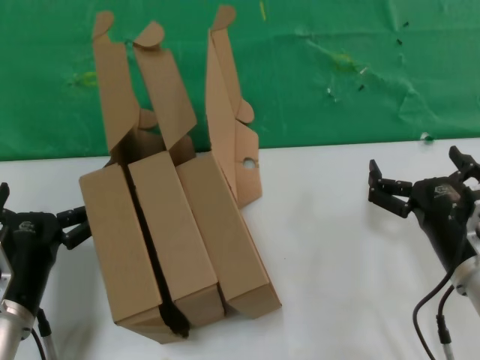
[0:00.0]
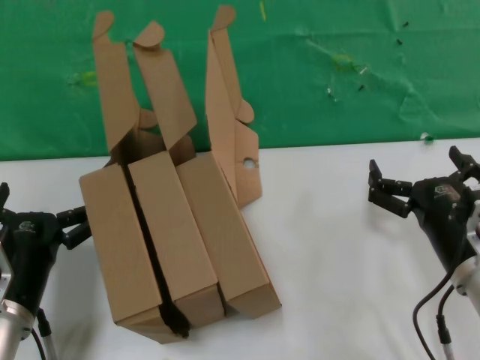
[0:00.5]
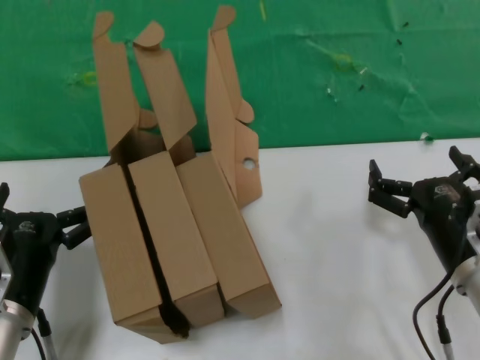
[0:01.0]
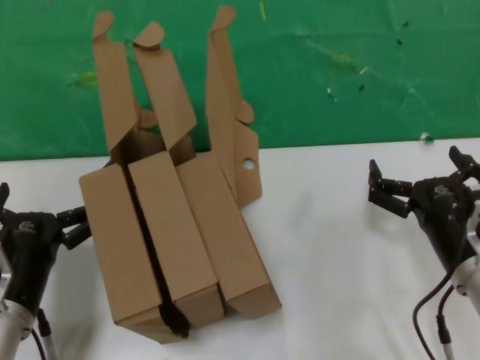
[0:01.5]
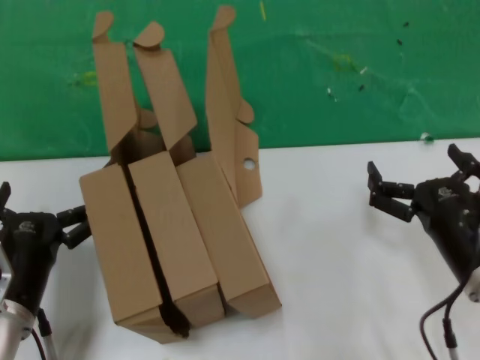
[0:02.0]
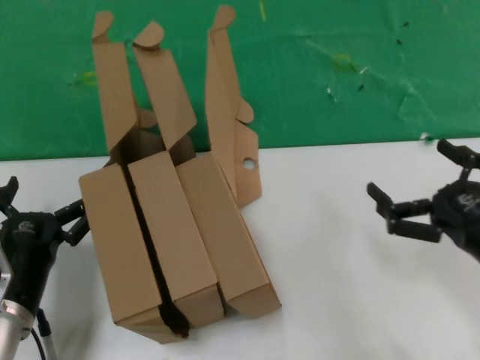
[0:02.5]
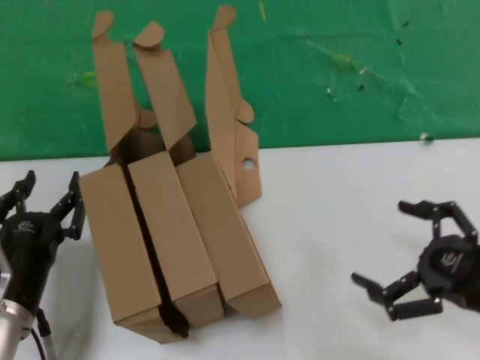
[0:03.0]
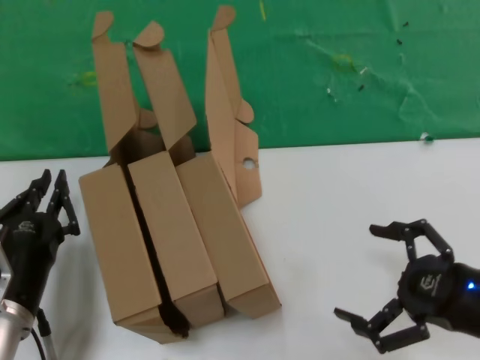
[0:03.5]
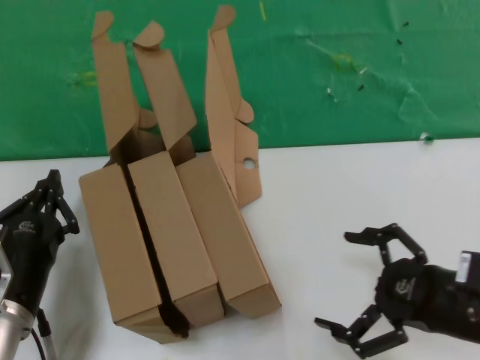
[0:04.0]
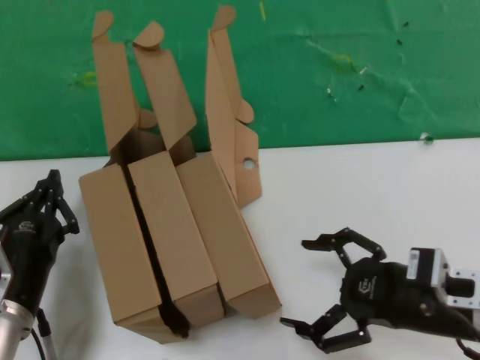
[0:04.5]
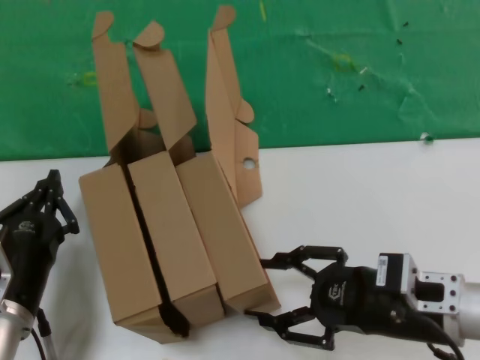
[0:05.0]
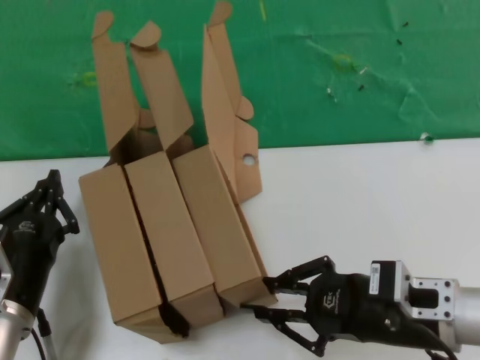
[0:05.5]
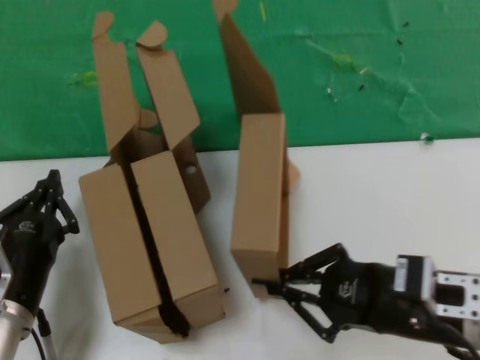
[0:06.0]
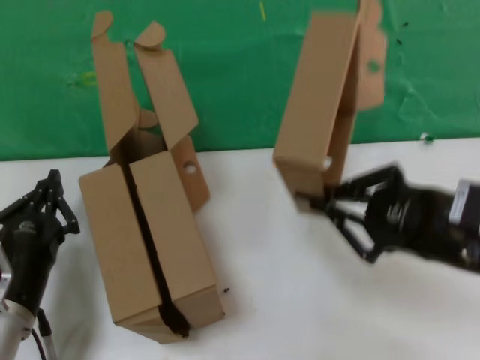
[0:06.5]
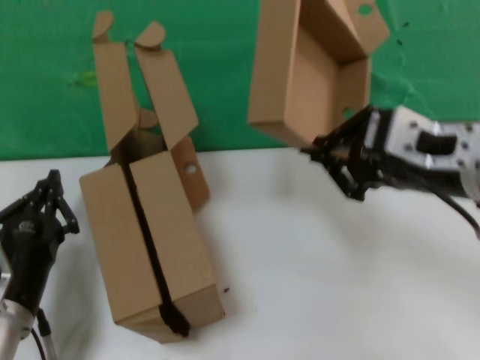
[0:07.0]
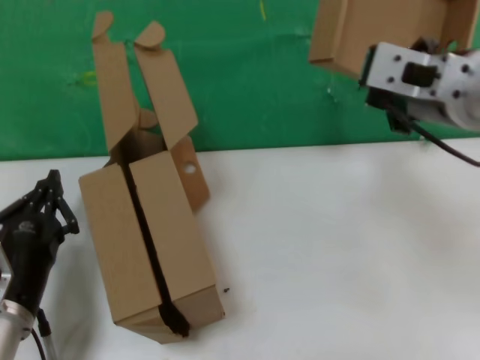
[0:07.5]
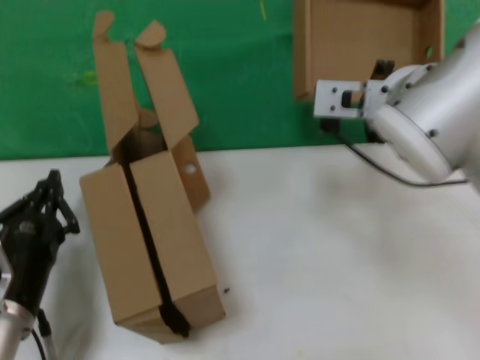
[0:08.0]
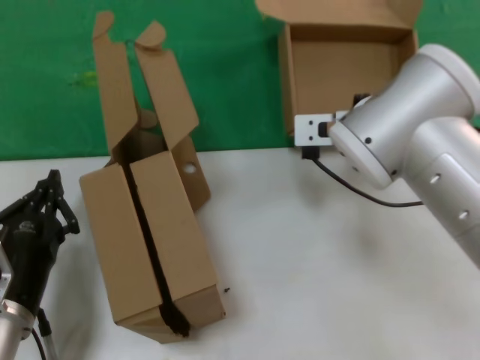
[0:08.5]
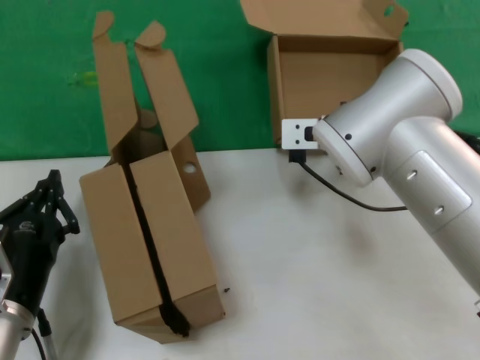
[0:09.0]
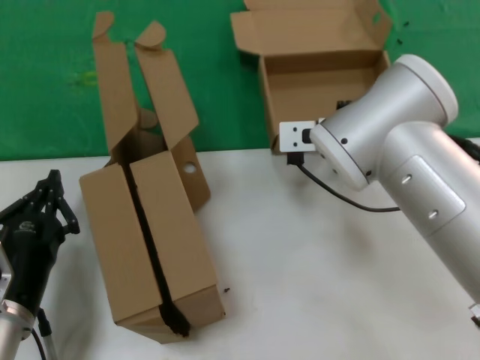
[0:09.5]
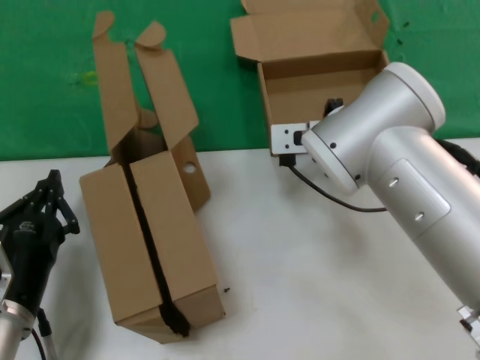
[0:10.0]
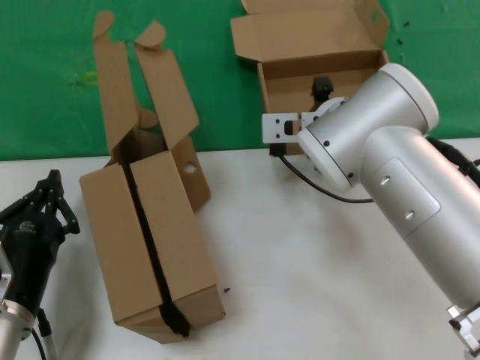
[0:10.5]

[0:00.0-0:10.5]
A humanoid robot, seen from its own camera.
Task of the whole recording: pick up the paper box and put it at the back.
Step, 0:00.0 to 0:05.5: Grasp the paper box.
0:00.0 to 0:02.0: The hands make only small movements.
0:02.0 to 0:04.0: The right hand moves some 5 cm.
0:04.0 to 0:06.5: The right hand shifts some 10 cm upward.
0:06.5 to 0:08.5: The right hand heads forward and to the left, covering approximately 25 cm.

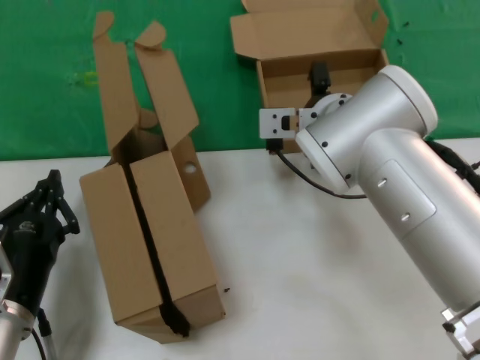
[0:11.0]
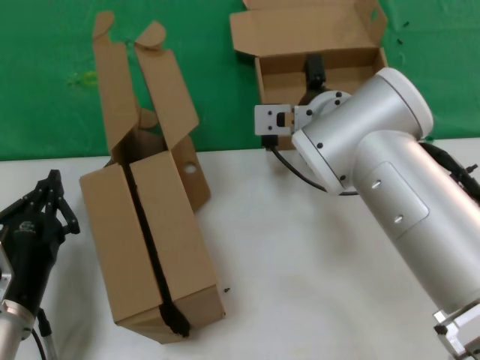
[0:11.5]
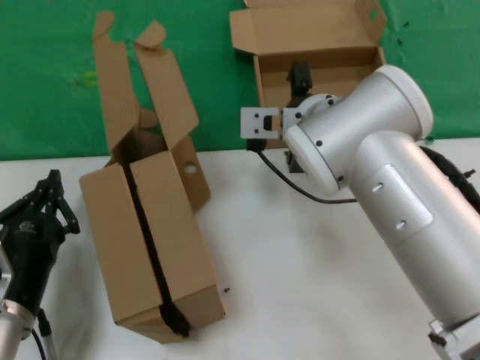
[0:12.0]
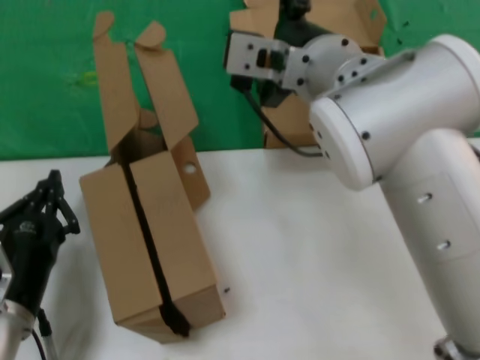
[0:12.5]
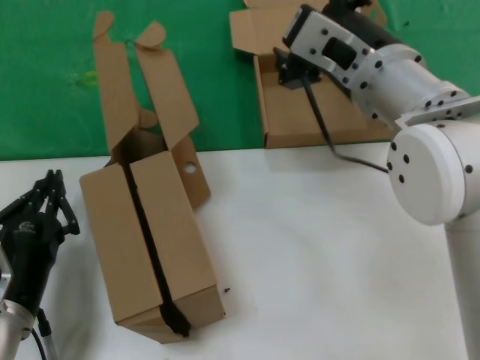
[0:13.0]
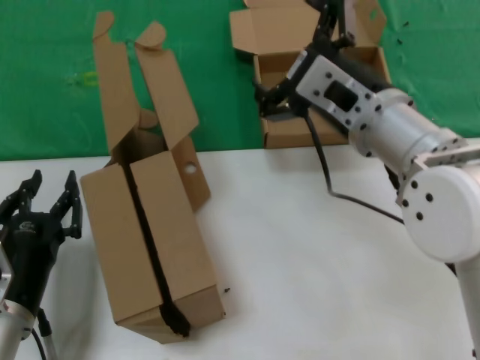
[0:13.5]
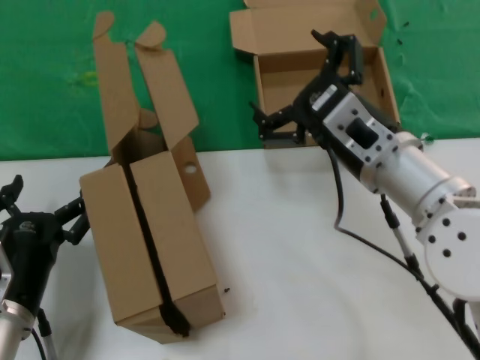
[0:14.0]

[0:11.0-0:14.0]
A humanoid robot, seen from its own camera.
Task of the whole recording: pick up the paper box and put it at the back.
0:11.0 to 0:12.5: The right hand heads upward and backward, covering about 10 cm.
0:12.5 to 0:14.0: The right hand moves downward and to the right, approximately 15 cm.
